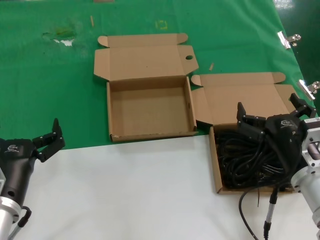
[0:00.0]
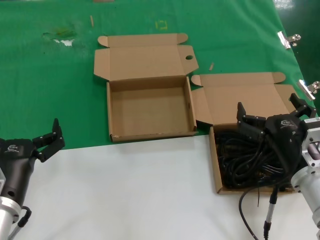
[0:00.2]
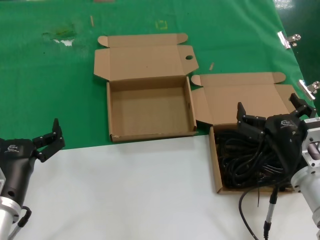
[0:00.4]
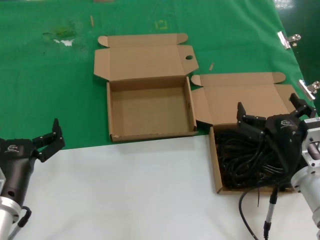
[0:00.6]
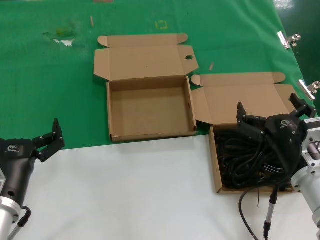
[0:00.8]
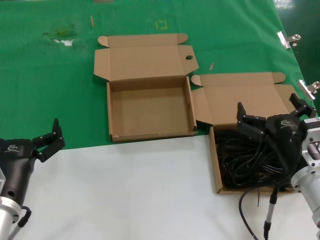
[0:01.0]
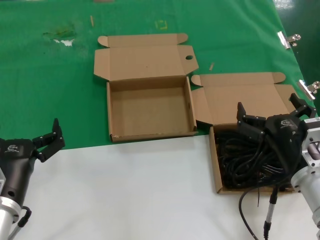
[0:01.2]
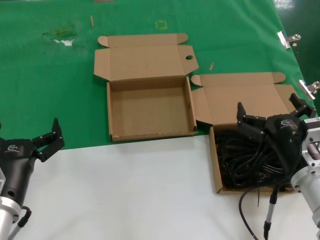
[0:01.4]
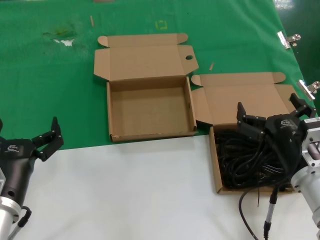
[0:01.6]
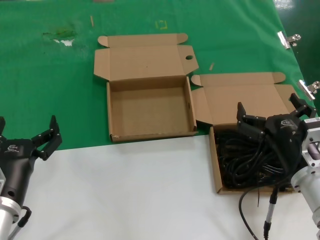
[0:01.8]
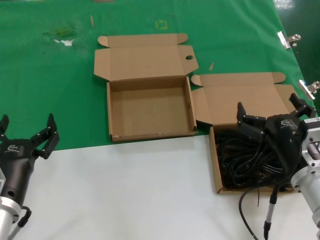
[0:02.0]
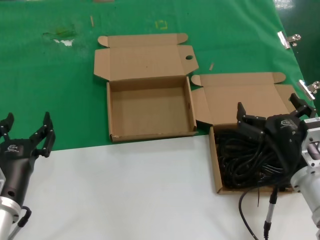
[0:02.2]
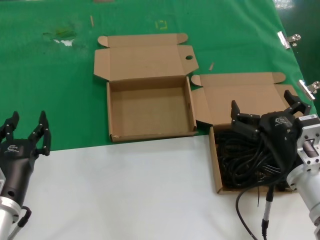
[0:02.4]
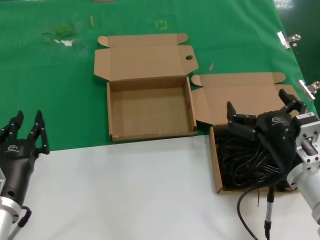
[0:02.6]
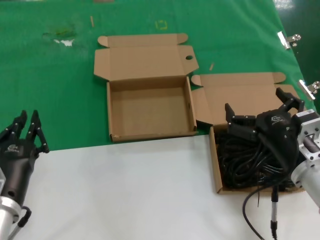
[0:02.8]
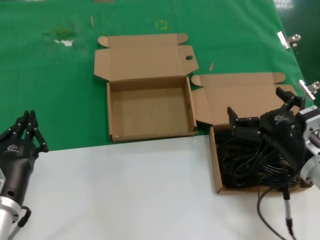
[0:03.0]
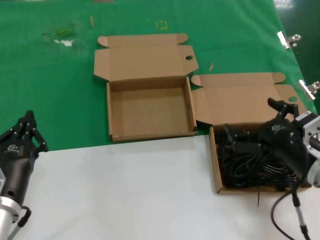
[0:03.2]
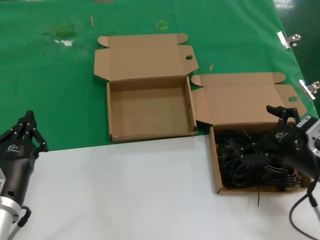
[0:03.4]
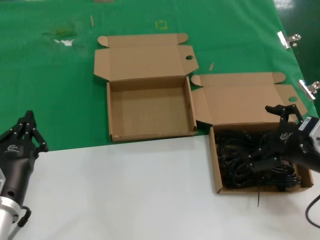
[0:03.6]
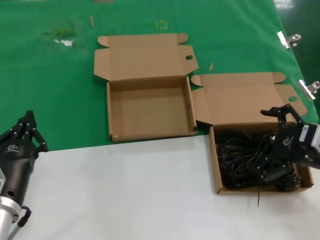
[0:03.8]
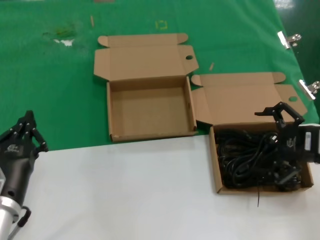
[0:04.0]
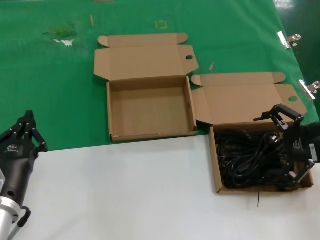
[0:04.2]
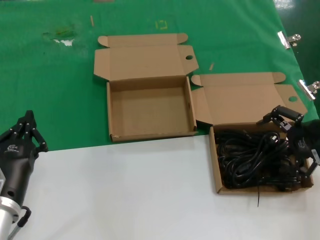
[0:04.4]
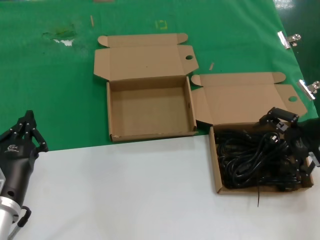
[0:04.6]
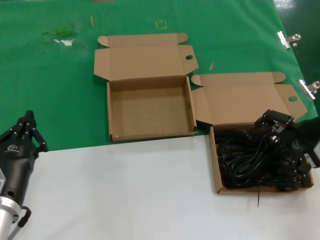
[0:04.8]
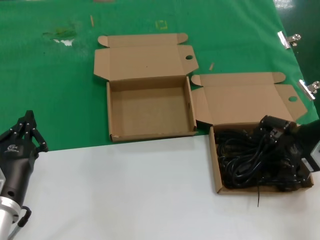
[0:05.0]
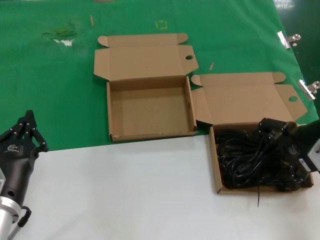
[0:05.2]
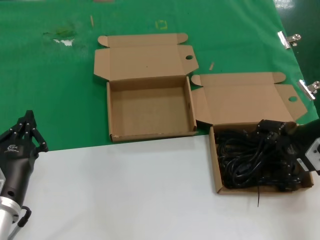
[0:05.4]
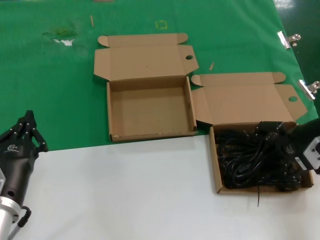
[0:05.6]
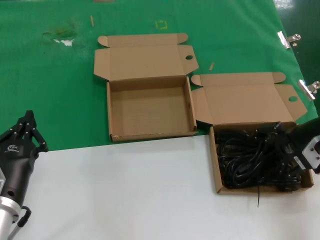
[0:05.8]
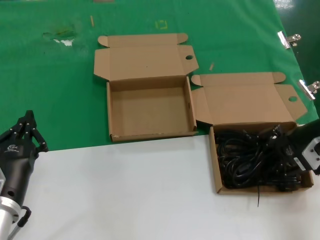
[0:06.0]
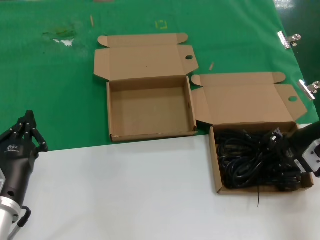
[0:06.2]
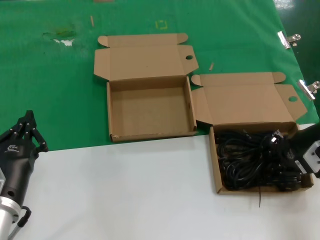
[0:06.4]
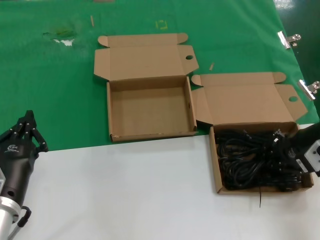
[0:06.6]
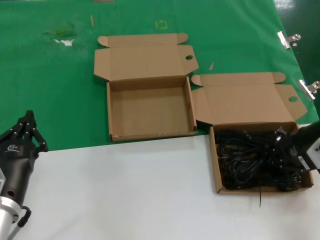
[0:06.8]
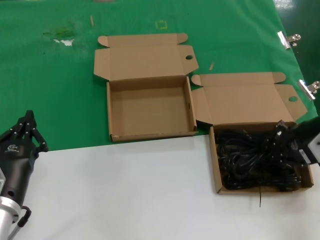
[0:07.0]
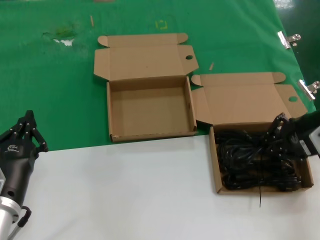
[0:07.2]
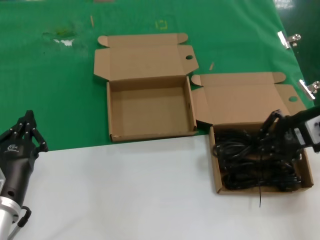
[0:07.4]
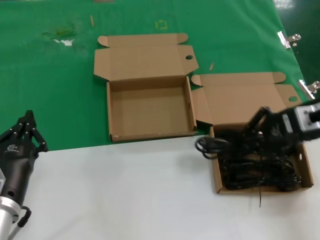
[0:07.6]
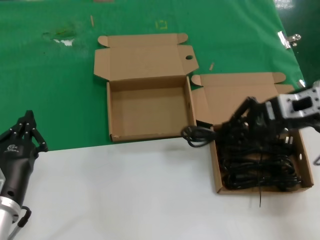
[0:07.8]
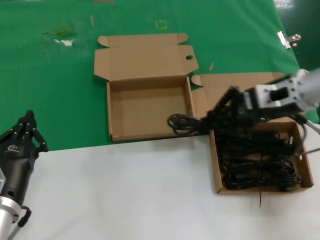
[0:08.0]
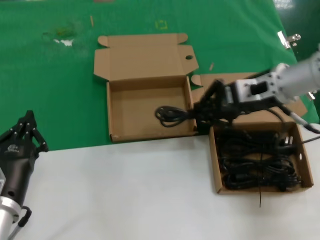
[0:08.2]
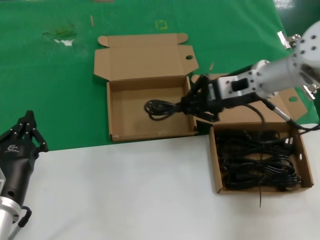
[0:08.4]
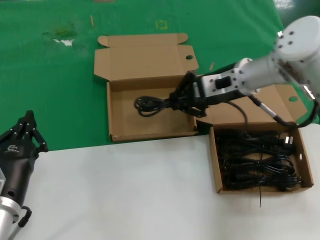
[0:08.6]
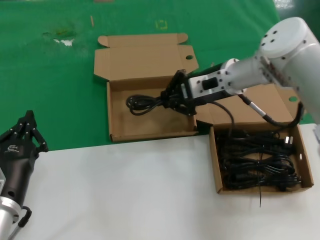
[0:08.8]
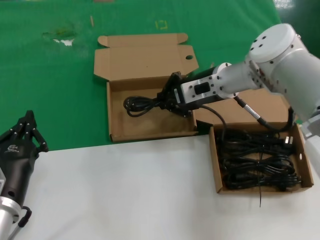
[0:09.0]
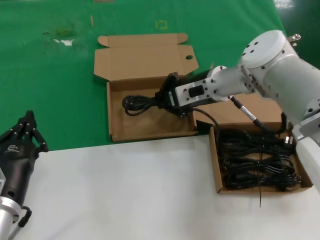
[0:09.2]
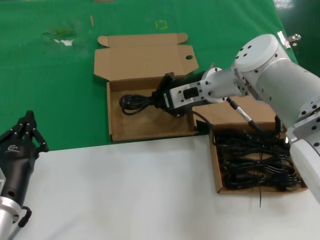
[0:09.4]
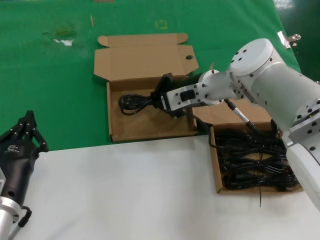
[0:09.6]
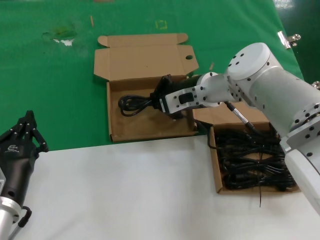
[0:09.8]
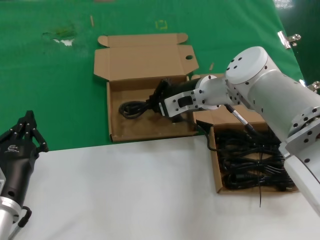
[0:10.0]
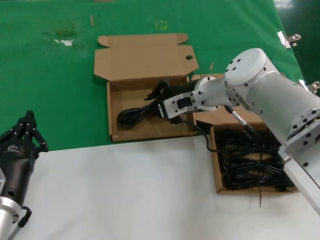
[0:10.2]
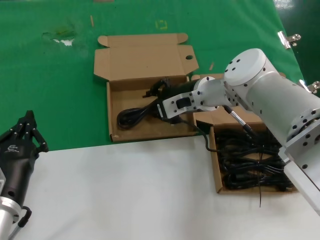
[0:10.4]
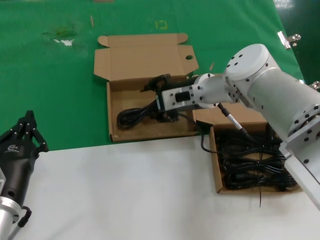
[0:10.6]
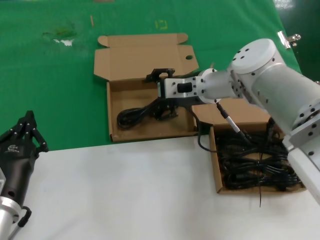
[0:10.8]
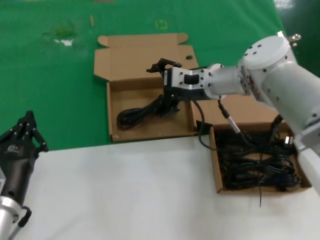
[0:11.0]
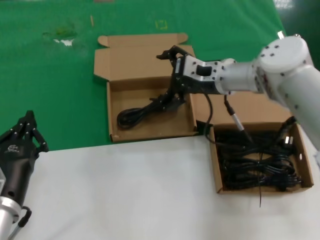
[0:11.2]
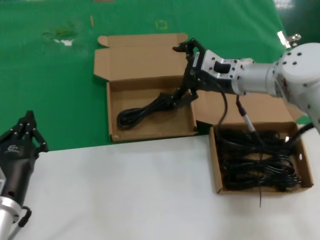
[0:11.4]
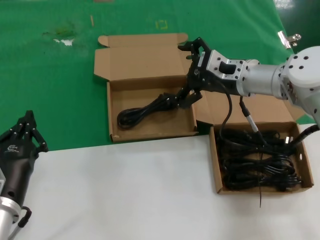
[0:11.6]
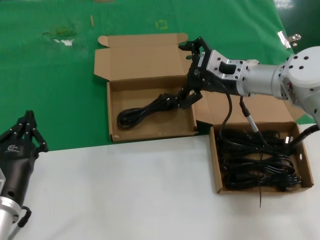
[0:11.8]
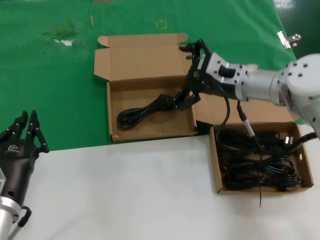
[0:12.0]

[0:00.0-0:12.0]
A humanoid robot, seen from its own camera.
Task of the whole recording: take the parts from the box containing them and put them into an empty box.
Step, 0:00.0 to 0:06.6: Grasp the data cable.
Step, 0:06.8 to 0:10.2: Place the data cable in the another box.
0:00.0 to 0:01.6: Both hands stay put.
0:01.6 to 0:03.0: The hands make only small movements.
0:03.0 to 0:04.4: The right hand goes approximately 15 cm to the right, upward and forward.
0:04.4 to 0:06.0: There are only small adjustments of the hands.
0:06.0 to 0:07.6: The right hand shifts some 5 cm upward.
0:07.6 to 0:09.0: The right hand travels to the left and forward by some 20 cm.
0:09.0 to 0:10.4: The right hand changes place by approximately 5 cm.
0:10.4 to 0:12.0: The right hand shifts approximately 10 cm to the right.

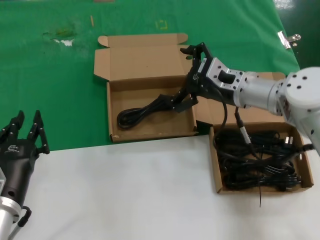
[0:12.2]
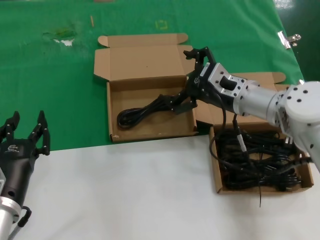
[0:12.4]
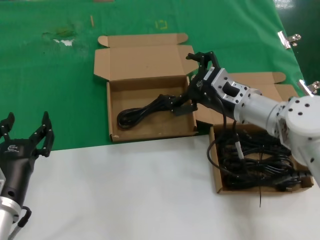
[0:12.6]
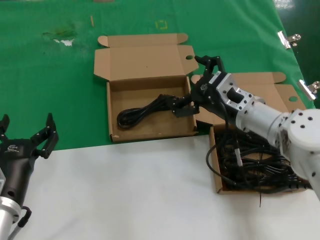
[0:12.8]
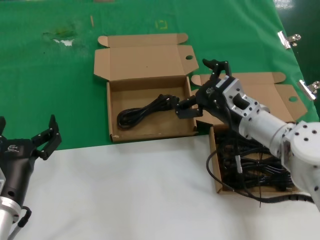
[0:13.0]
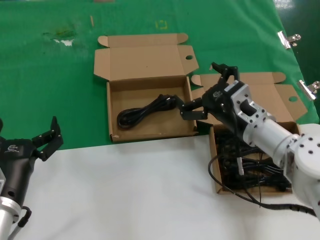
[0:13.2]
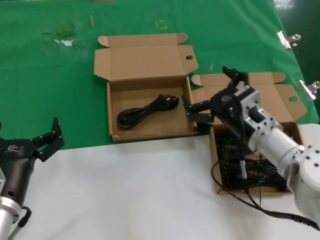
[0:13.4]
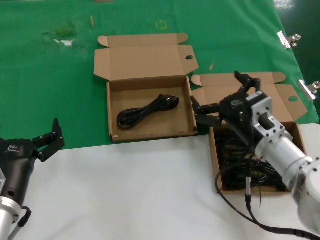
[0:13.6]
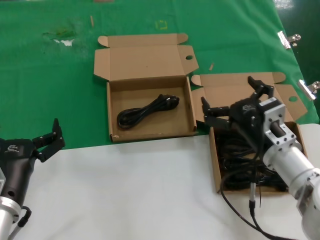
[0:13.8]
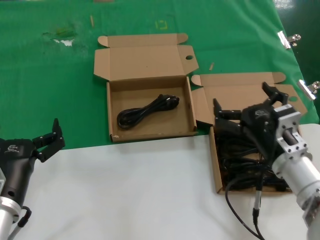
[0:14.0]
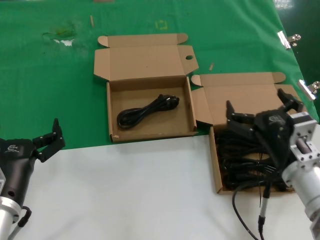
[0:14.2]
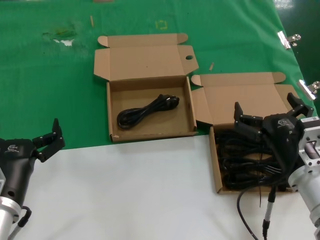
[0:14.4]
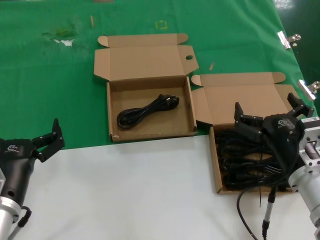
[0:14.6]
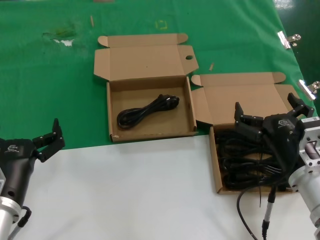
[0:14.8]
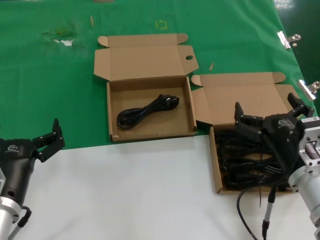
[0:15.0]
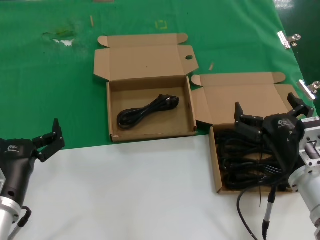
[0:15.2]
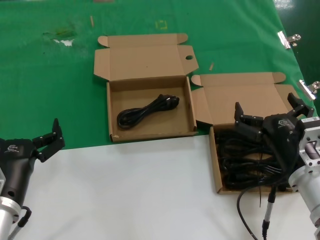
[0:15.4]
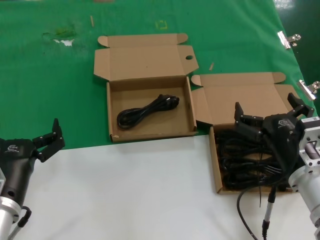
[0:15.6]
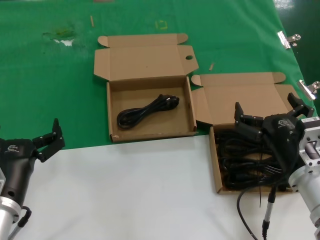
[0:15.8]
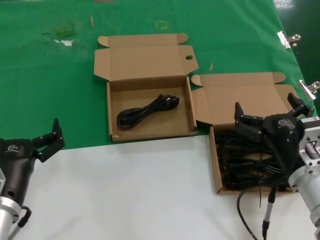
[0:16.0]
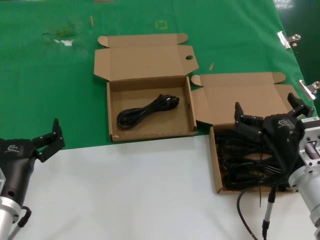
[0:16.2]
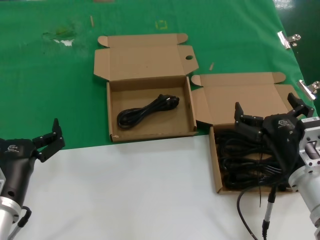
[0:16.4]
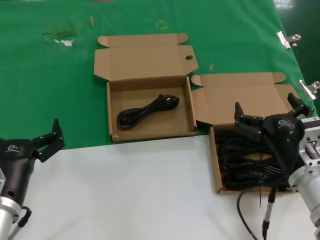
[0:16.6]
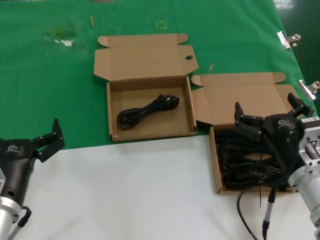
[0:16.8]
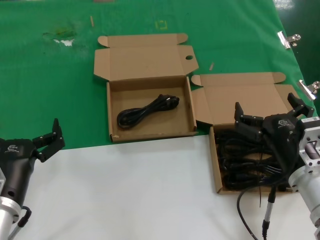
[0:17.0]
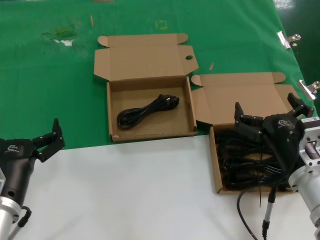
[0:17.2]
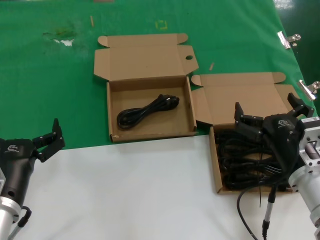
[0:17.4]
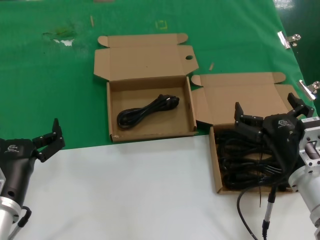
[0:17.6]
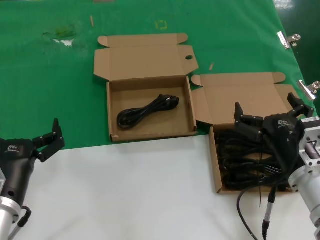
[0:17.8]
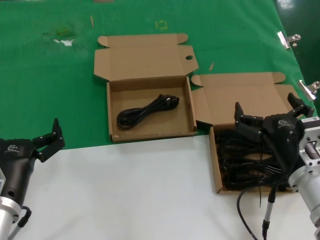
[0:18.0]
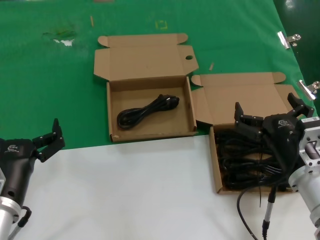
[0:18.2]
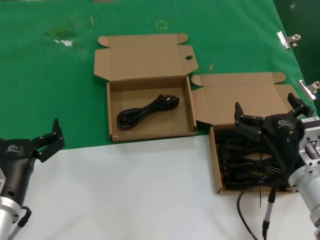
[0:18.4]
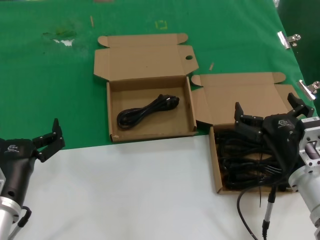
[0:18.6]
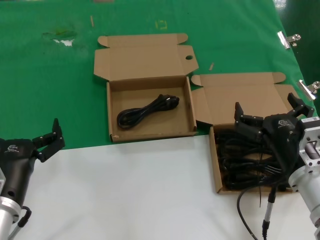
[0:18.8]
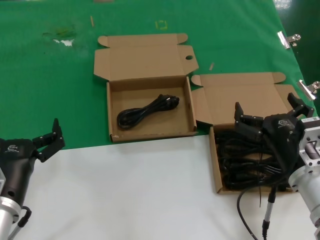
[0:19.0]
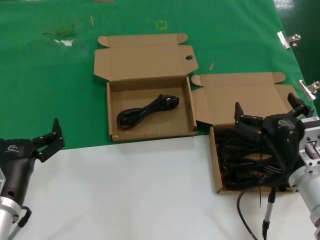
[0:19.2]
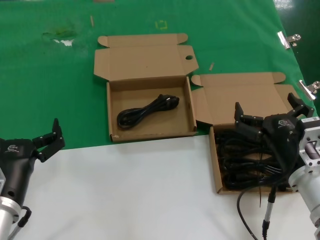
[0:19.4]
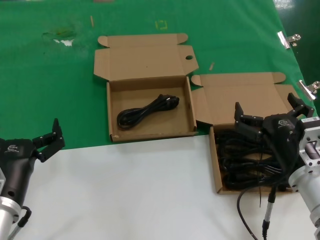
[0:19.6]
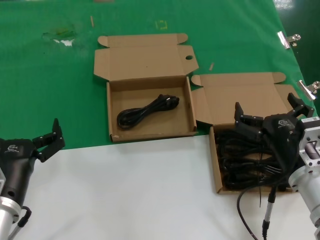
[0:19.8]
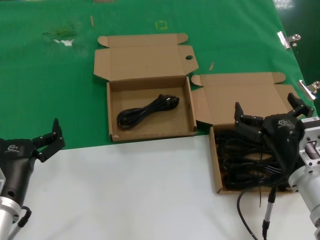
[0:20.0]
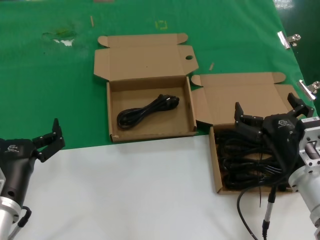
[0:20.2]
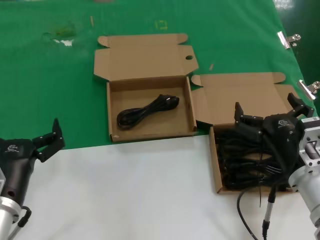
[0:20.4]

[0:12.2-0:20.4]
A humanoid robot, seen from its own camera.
Task of the whole recording: take the parts from the box containing them and put them into an empty box.
0:12.2 to 0:13.8: The right hand is displaced backward and downward by roughly 15 cm.
0:13.8 to 0:15.4: The right hand heads backward, covering approximately 5 cm.
0:15.4 to 0:20.4: Both hands stay put.
